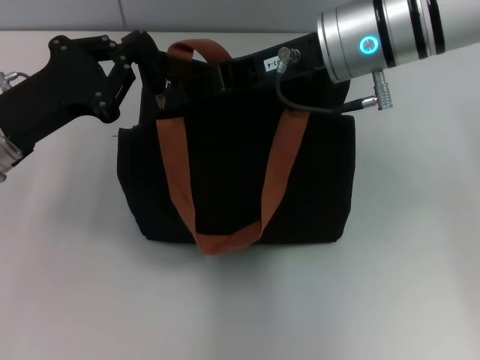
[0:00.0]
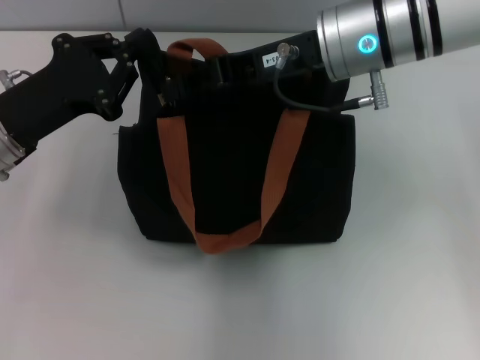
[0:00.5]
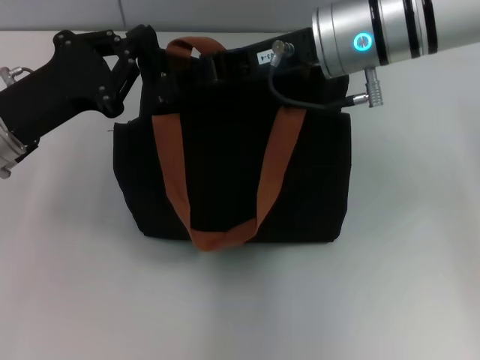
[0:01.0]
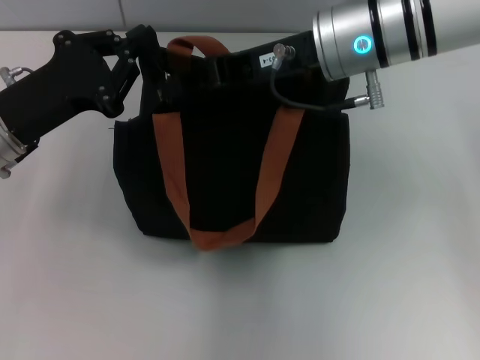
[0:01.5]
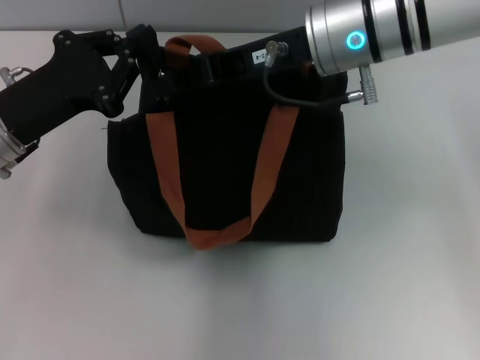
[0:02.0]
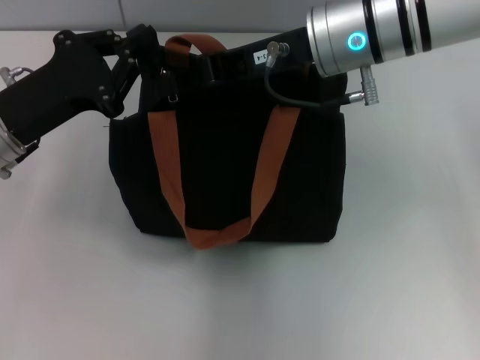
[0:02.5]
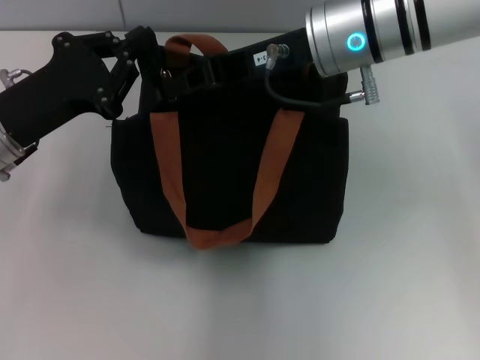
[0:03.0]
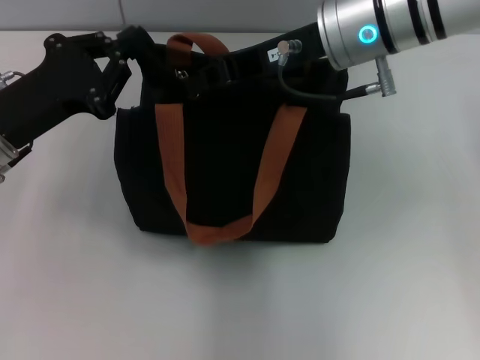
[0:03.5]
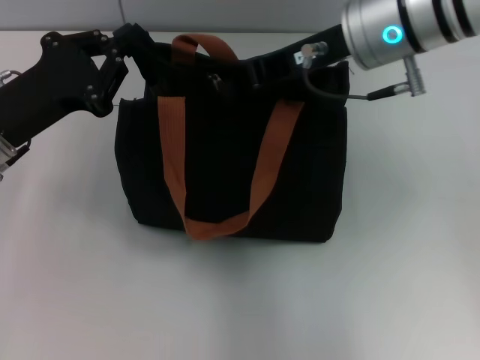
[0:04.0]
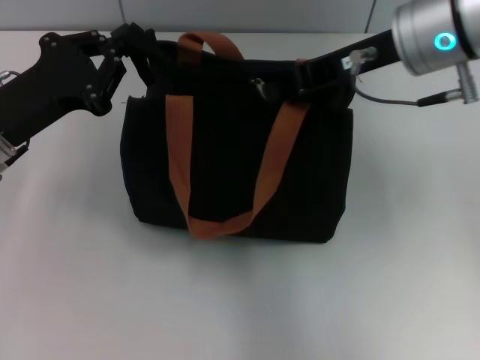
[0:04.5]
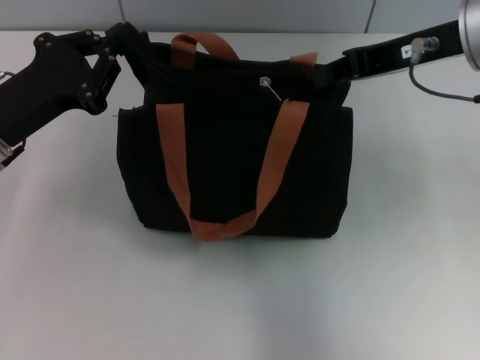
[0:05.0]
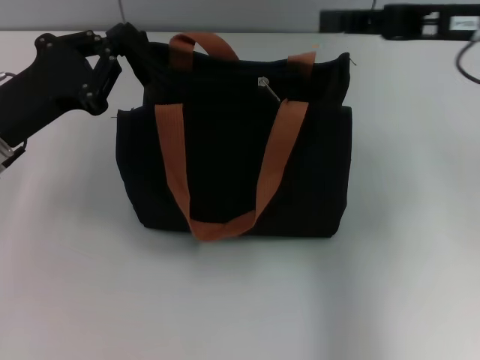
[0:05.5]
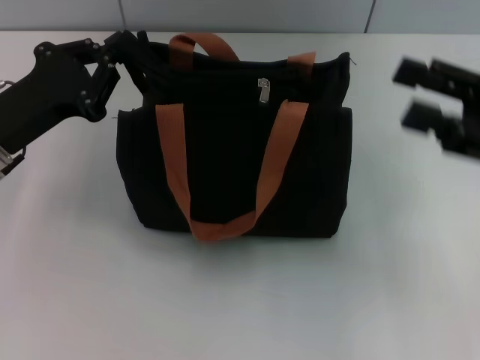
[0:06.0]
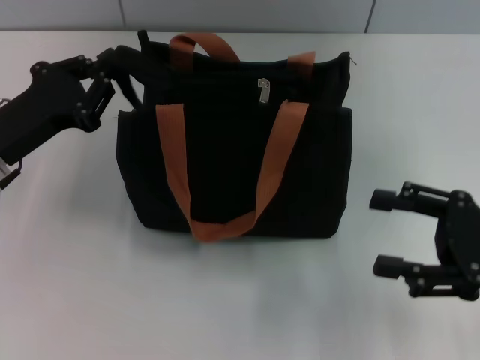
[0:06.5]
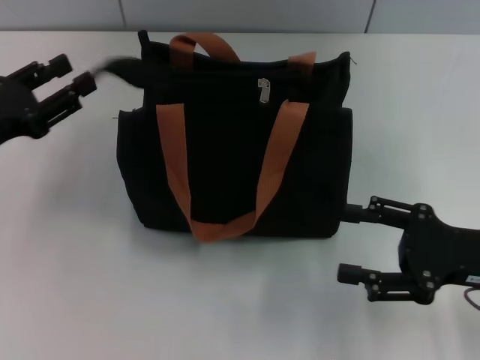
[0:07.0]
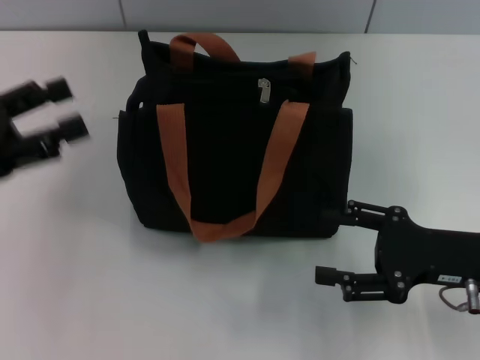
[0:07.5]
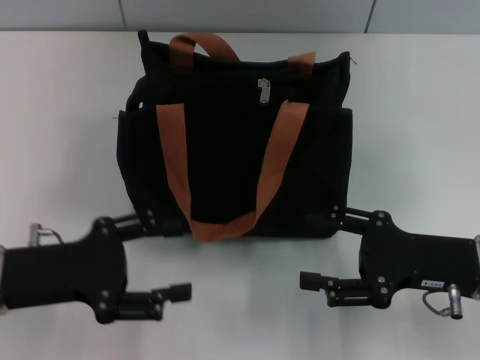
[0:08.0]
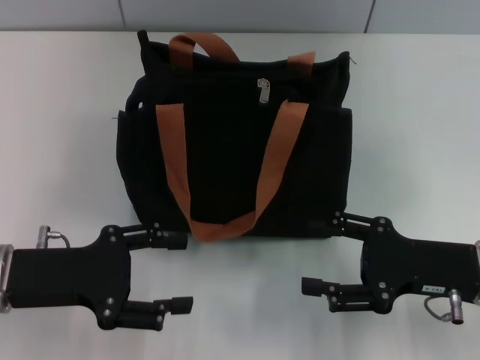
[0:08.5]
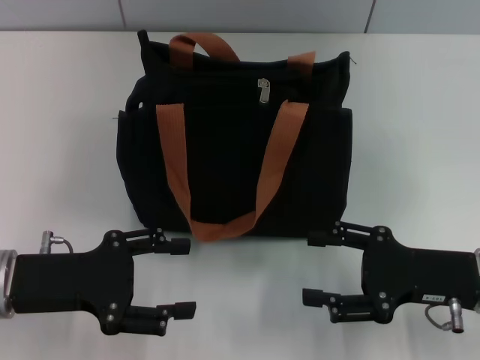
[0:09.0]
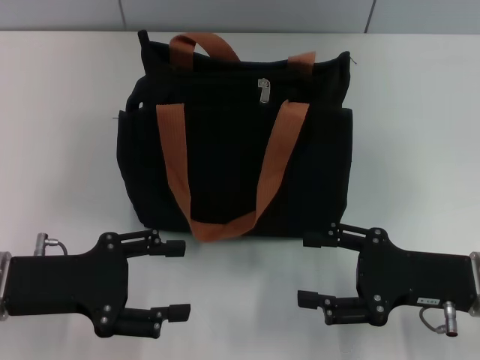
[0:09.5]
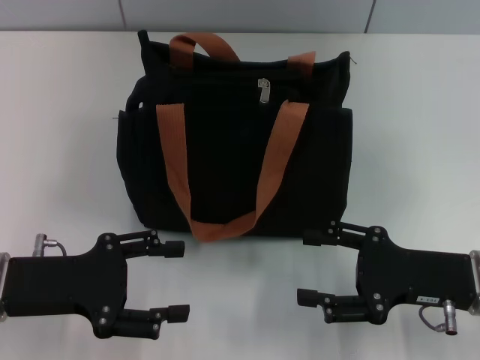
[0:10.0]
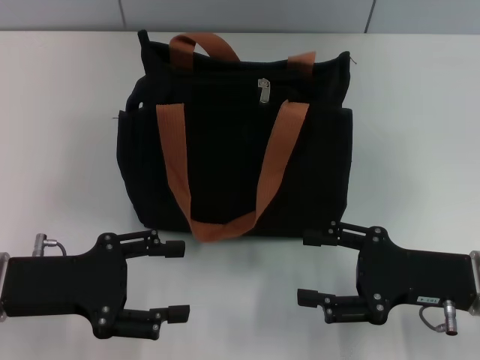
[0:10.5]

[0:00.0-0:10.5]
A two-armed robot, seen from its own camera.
Step, 0:00.0 to 0:04.5: Pull up the zipper with your right hand.
Step, 0:05.0 to 0:07.0: Grab the zipper with your left hand.
0:00.0 to 0:02.0: Both grippers stay put.
0:02.0 to 0:04.0: The grippers make only small movements.
0:04.0 to 0:06.5: The right gripper is displaced to the right, backward and downward by some 25 cm, and opens.
0:06.5 to 0:08.5: The right gripper ends up roughly 5 cm from where it was; the left gripper shifts roughly 5 cm backward, and opens.
0:08.5 to 0:10.5: Both grippers stay put.

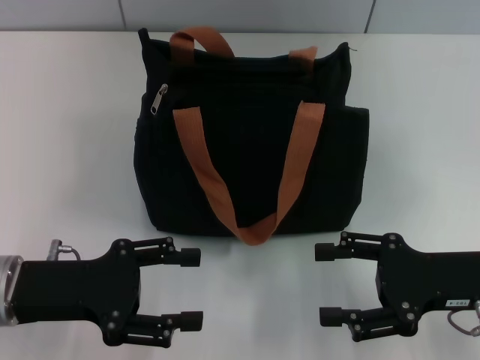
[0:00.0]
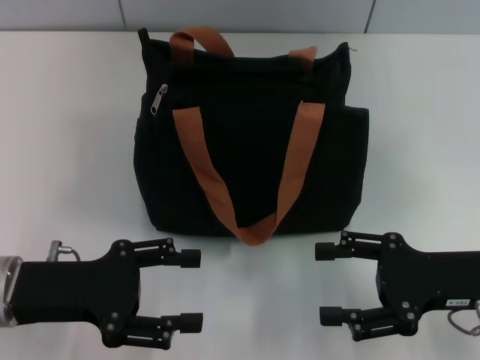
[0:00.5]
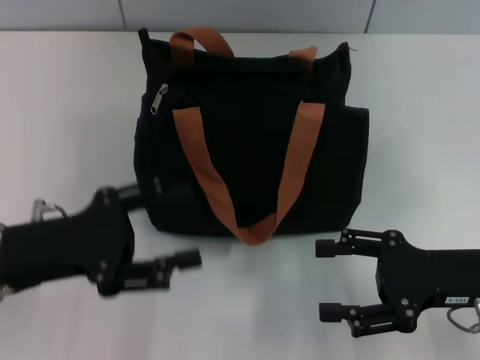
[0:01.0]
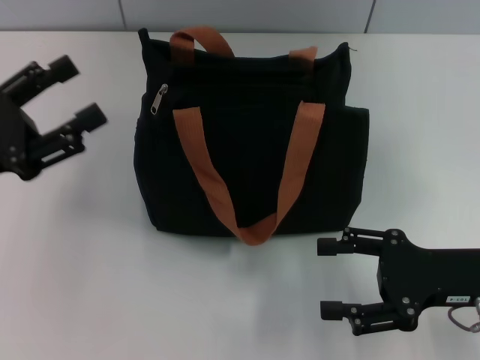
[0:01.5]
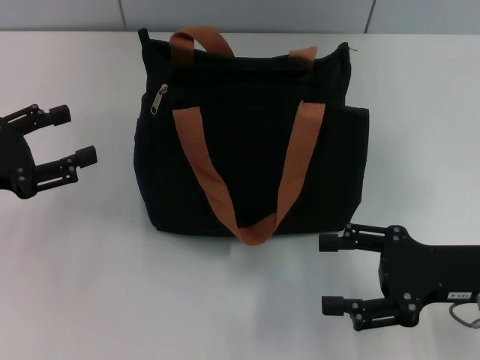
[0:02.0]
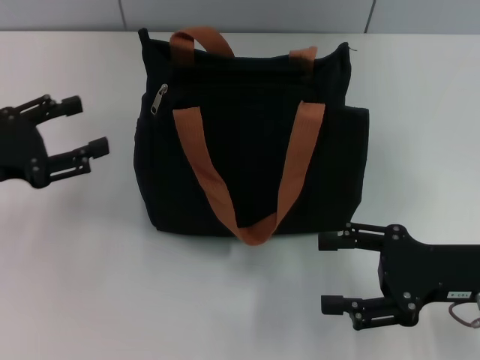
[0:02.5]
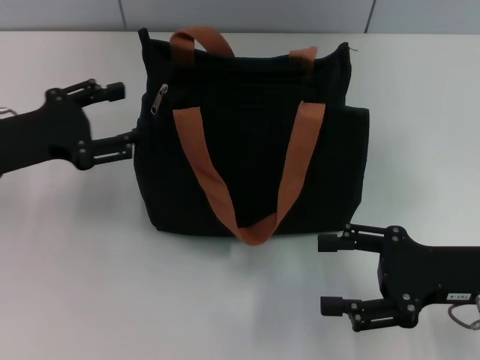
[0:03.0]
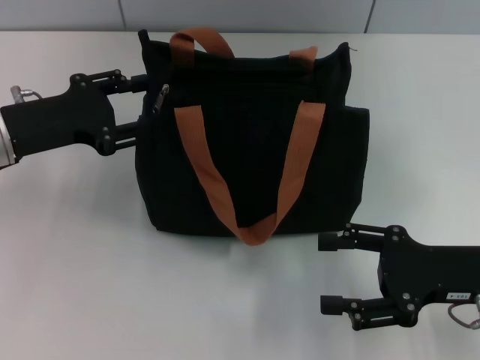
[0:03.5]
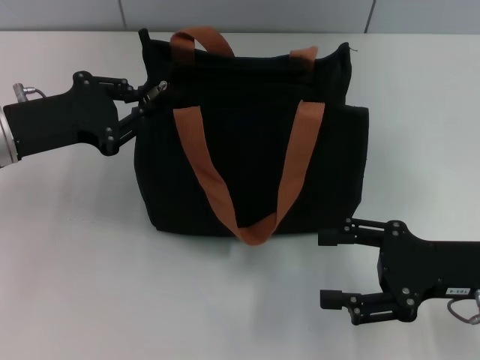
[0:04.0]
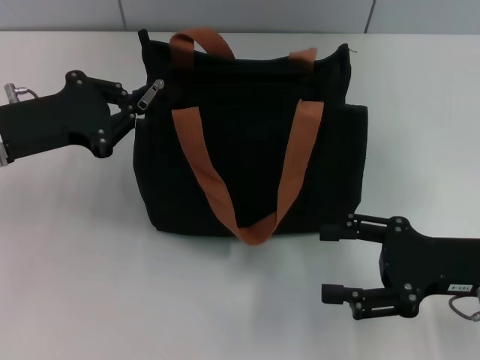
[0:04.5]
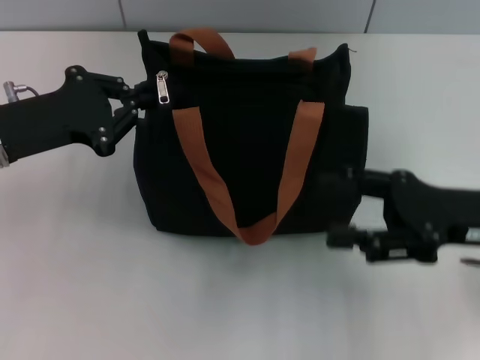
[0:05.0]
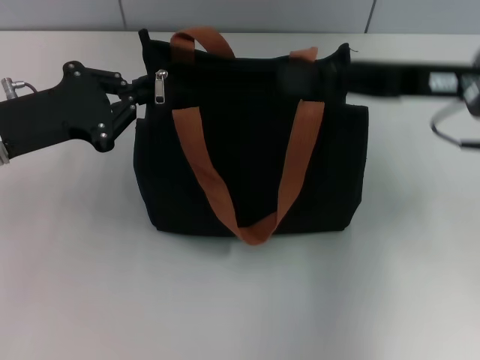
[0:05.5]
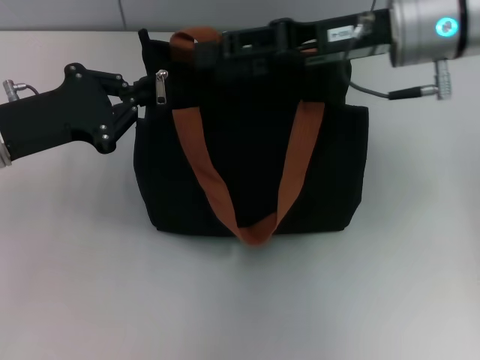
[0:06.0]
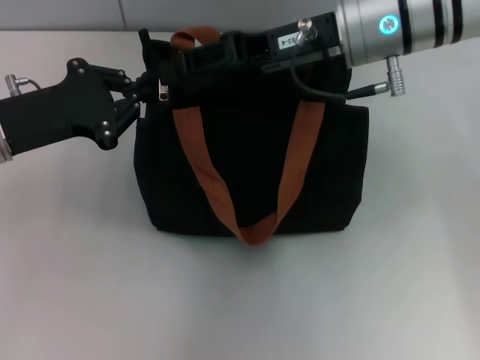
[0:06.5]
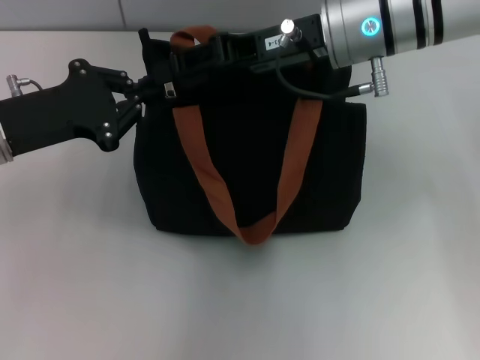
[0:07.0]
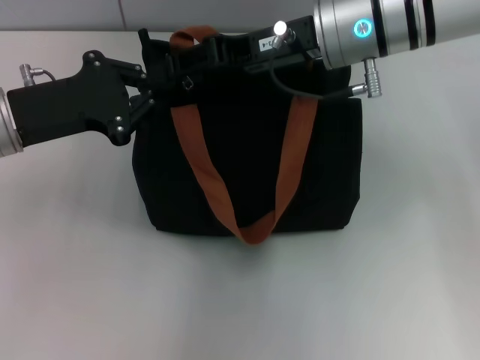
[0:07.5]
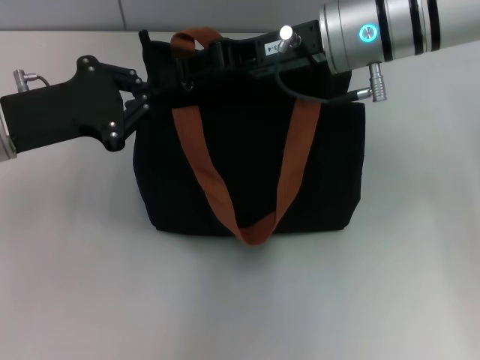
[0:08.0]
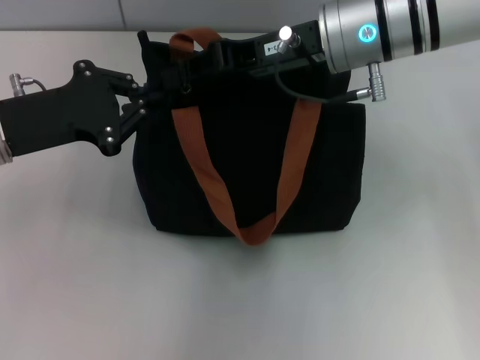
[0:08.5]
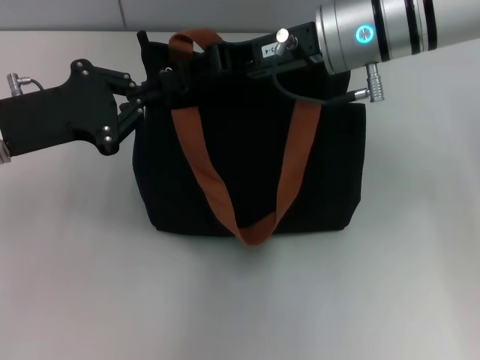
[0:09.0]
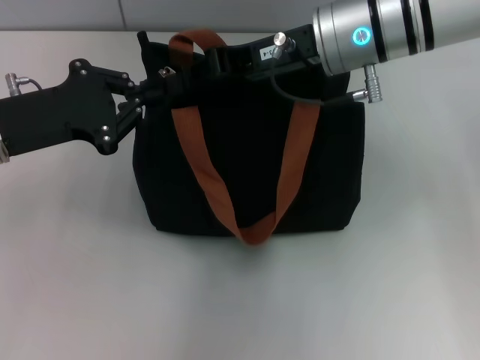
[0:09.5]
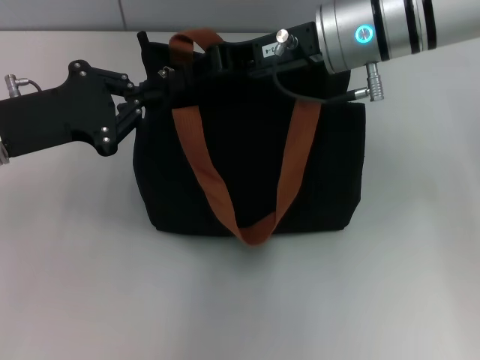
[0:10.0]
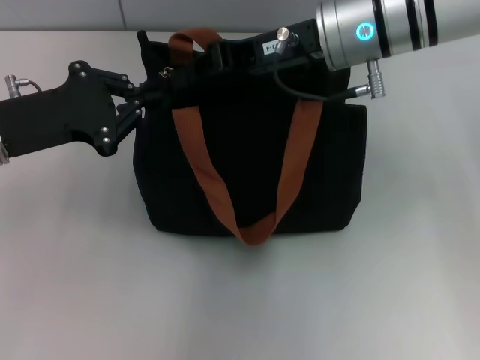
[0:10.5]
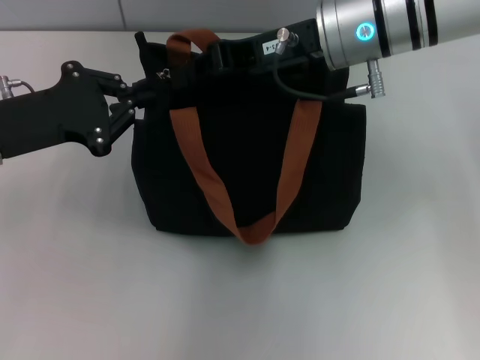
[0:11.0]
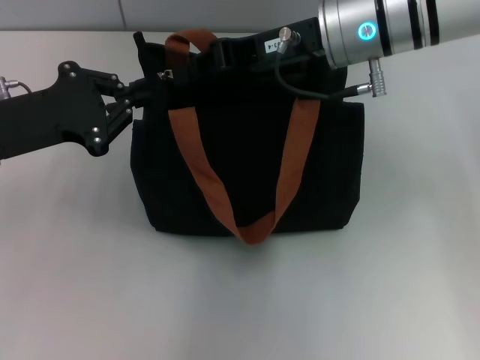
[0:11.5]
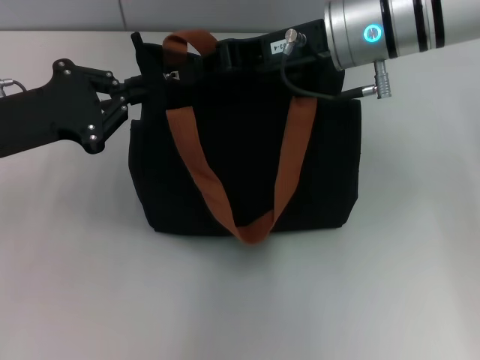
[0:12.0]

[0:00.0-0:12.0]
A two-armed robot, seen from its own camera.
0:00.0 to 0:02.0: The left gripper goes roughly 10 cm to the left.
0:02.0 to 0:04.0: The left gripper goes about 10 cm to the right and forward, and closes its fingers.
0:04.0 to 0:06.0: The left gripper closes. Meanwhile the right gripper heads forward, upward and to the left, covering approximately 25 cm.
0:06.0 to 0:08.0: The right gripper closes.
0:08.0 to 0:10.0: The two grippers keep their place.
0:10.0 to 0:12.0: Both grippers stay put.

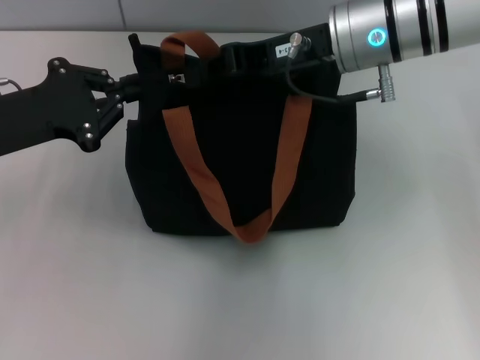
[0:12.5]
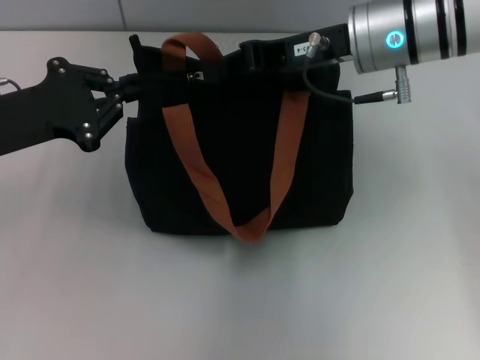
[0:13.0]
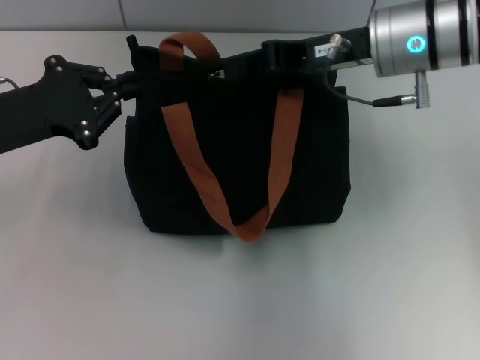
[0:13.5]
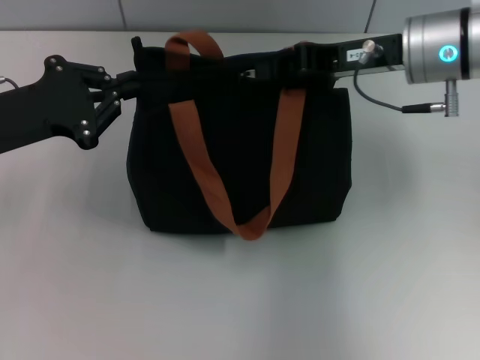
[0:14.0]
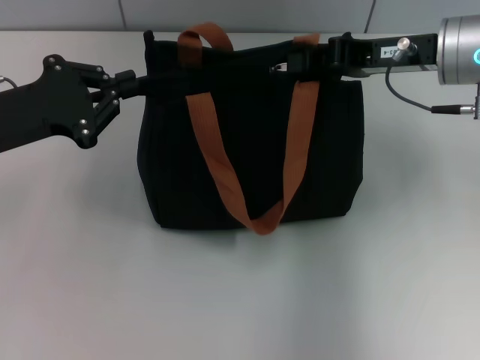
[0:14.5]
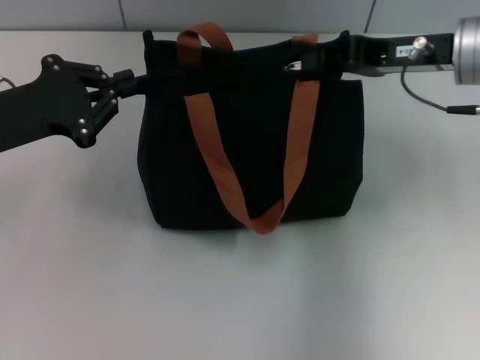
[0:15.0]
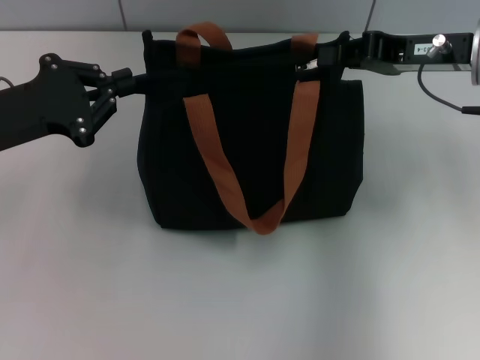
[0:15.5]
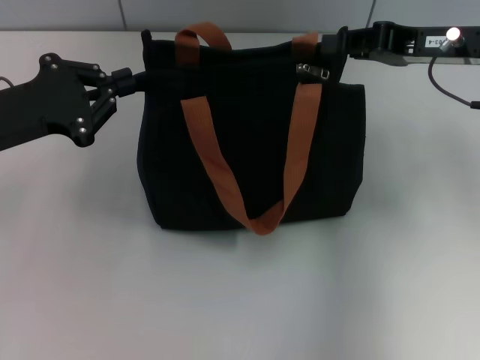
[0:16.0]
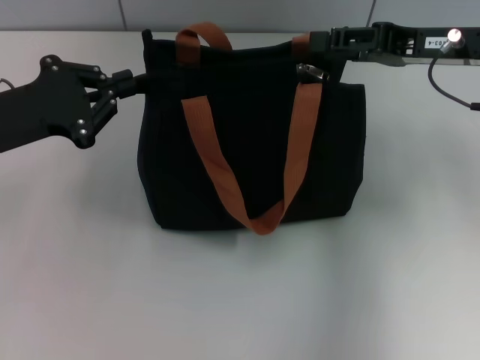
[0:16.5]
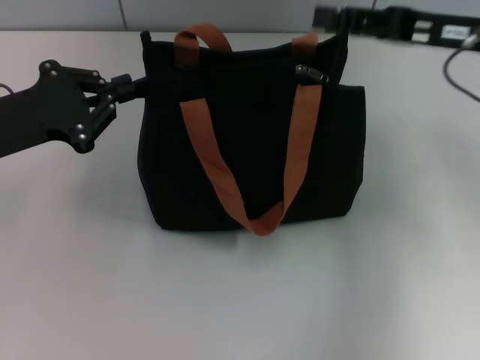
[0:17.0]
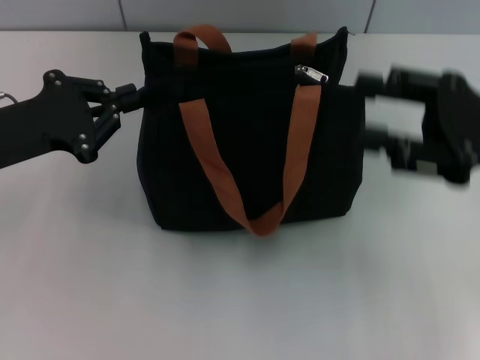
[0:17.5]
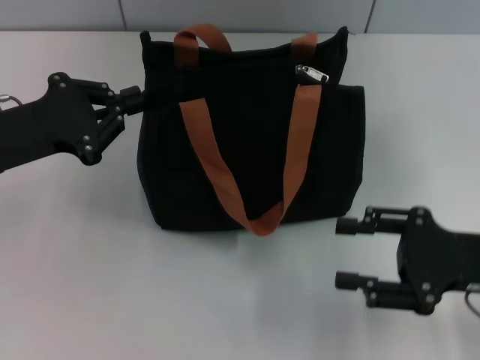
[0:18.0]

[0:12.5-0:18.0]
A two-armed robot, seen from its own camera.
Step, 0:12.5 to 0:16.0: Pull up the zipper with your right hand.
0:12.5 to 0:14.5: The right gripper goes about 10 cm to the right.
0:14.5 to 0:16.0: The grippers move only a little.
0:16.0 to 0:18.0: The right gripper is displaced backward and downward by some 20 cm, and opens up.
